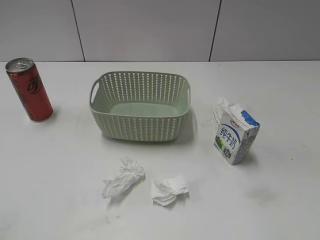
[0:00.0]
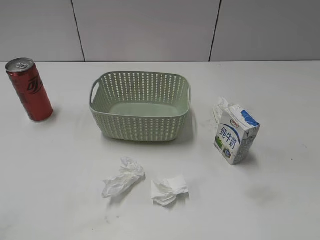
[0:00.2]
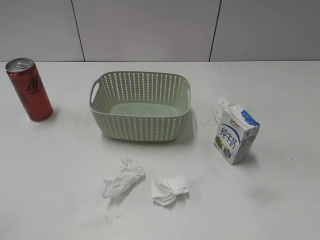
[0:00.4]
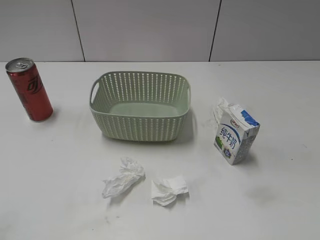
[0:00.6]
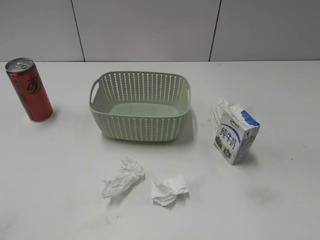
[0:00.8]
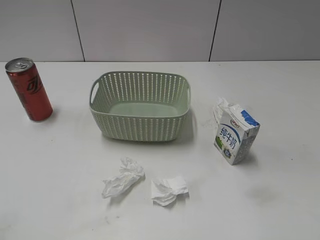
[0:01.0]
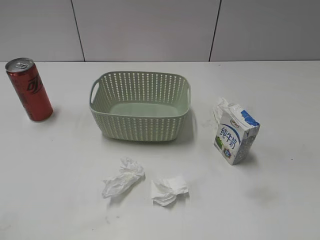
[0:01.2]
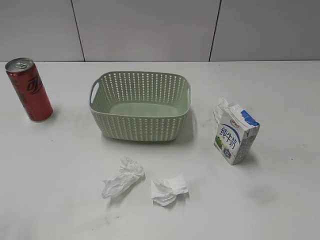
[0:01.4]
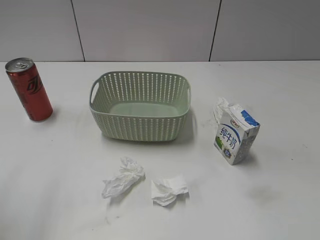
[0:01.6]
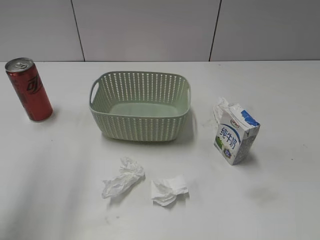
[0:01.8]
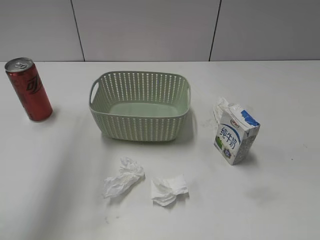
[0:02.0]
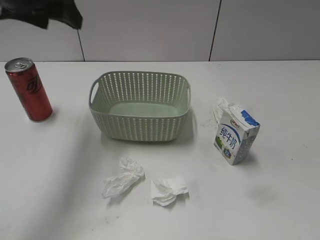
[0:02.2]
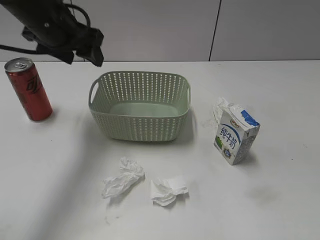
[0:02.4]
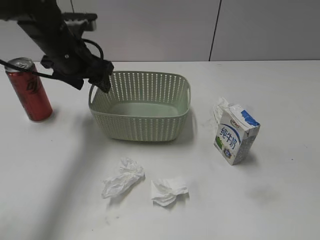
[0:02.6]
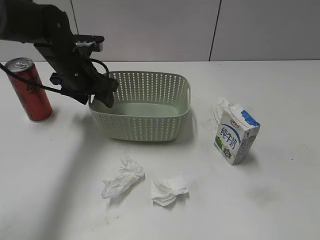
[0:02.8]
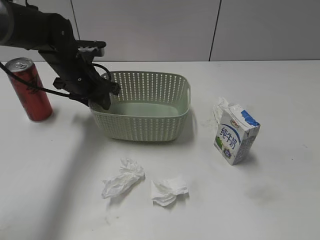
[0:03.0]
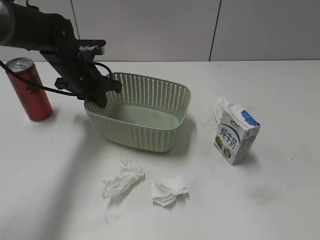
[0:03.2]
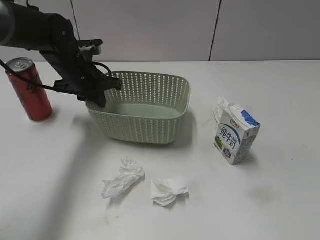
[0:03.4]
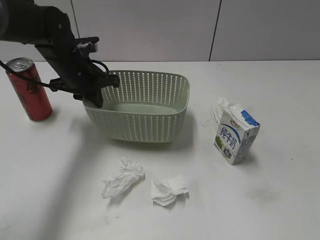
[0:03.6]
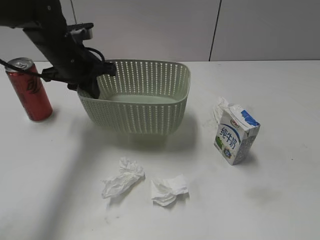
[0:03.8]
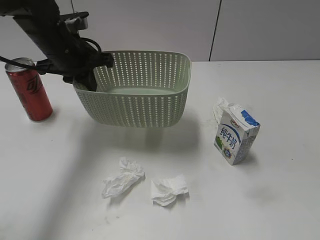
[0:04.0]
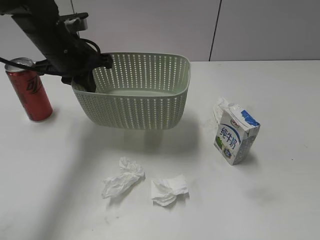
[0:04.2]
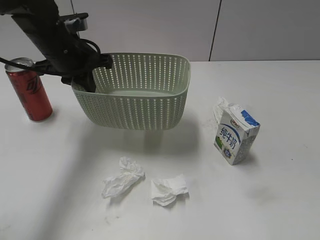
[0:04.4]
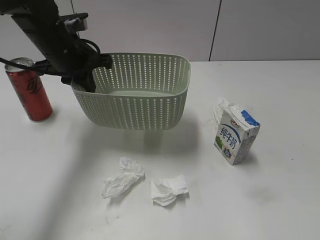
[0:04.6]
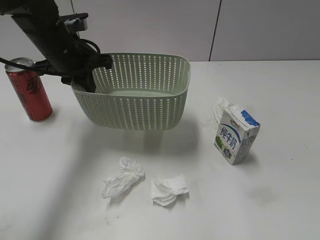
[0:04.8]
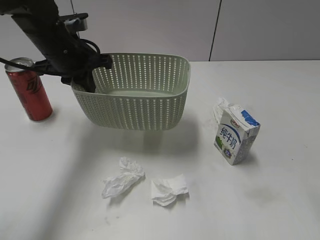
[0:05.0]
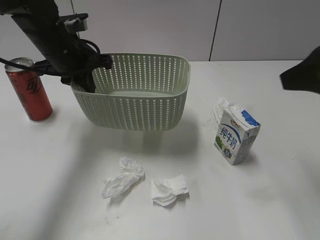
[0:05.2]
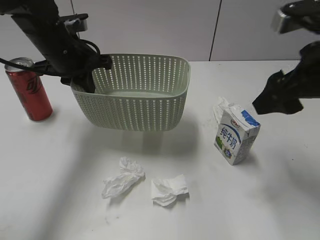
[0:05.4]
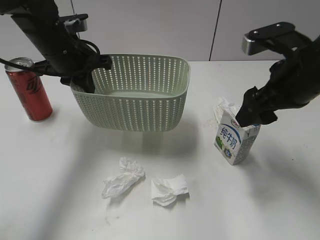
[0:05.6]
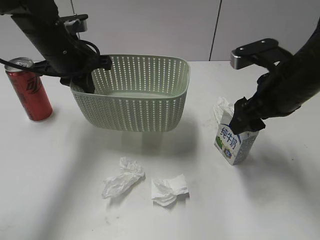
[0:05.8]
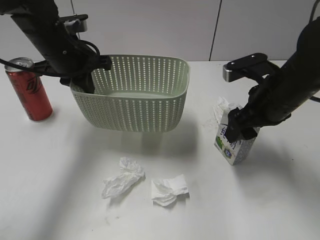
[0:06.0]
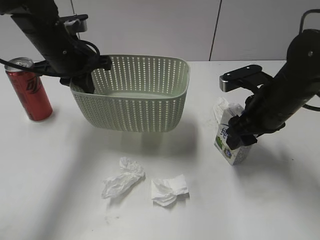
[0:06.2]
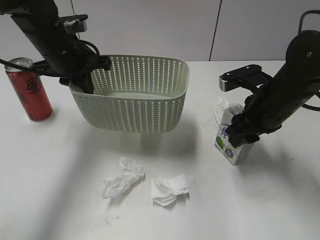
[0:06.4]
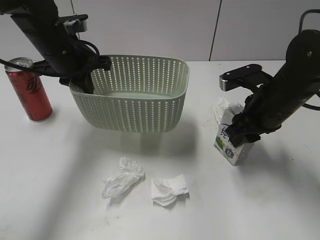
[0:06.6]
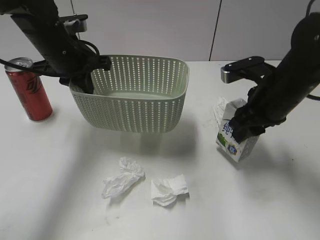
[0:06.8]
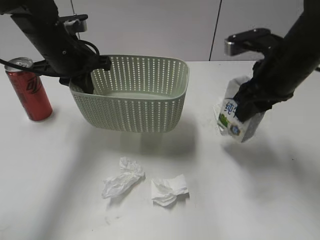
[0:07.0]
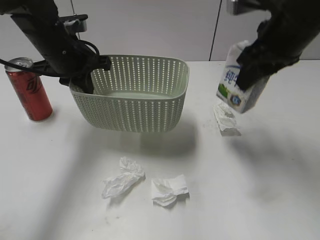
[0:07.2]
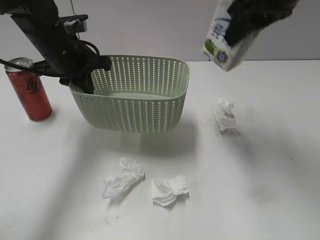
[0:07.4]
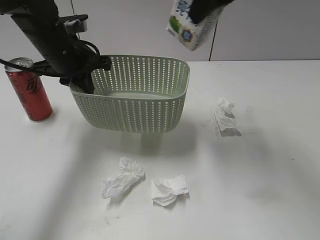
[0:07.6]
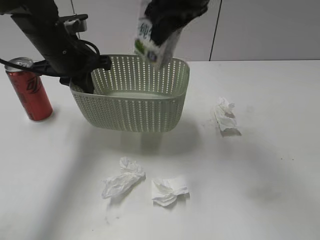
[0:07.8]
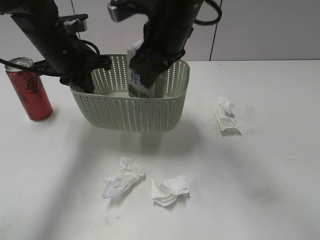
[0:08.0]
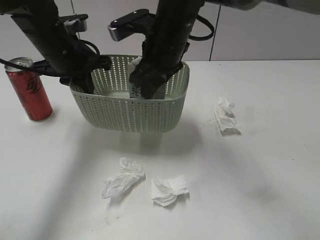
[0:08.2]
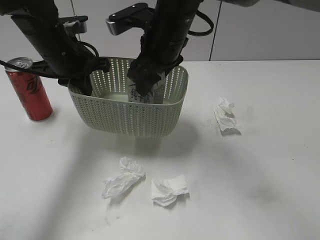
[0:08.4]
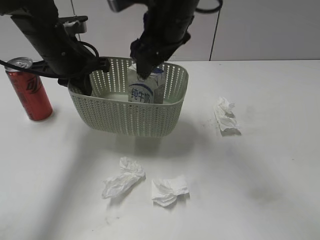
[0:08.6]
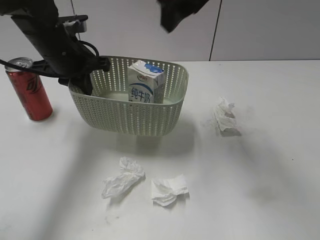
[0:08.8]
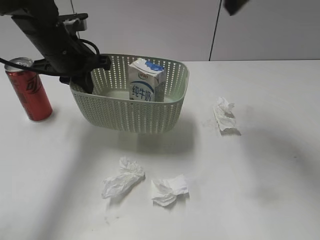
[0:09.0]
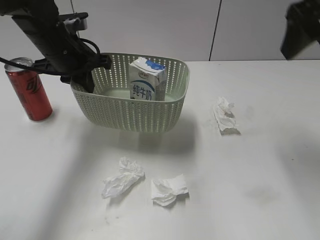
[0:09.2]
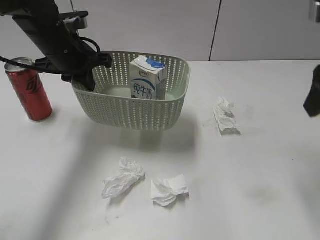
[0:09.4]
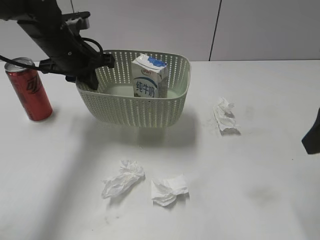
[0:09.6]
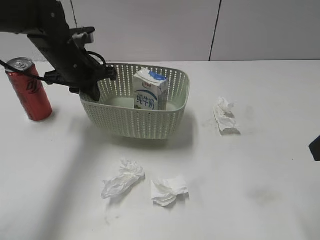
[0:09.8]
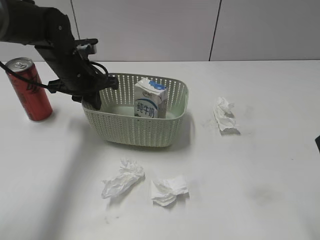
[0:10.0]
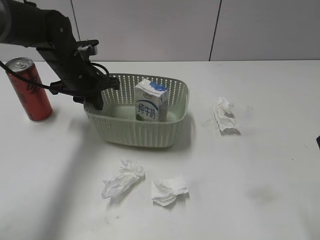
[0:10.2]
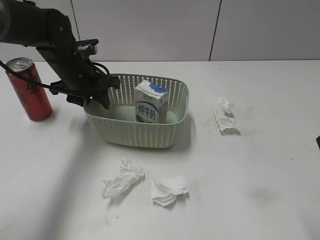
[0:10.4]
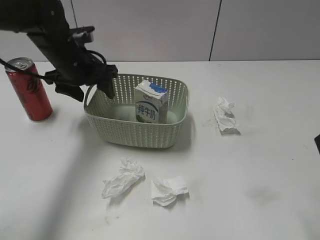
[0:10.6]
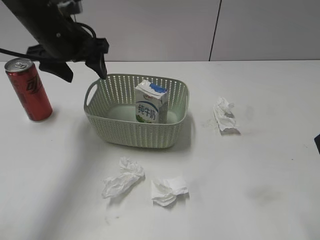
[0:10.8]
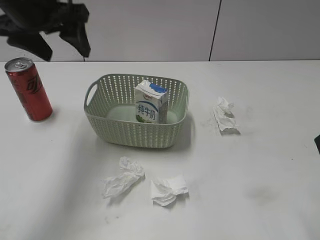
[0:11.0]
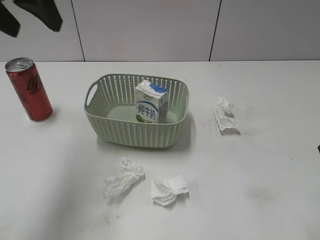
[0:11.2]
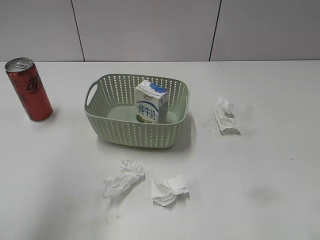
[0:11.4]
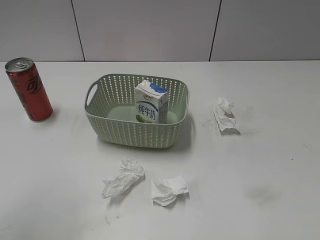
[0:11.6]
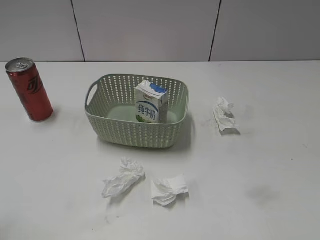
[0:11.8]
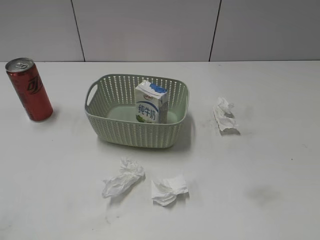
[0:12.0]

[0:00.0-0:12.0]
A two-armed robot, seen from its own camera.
Step, 2.2 to 3.2 s: Grasp the basket with left gripper.
Step, 3.4 to 4.0 s: Lift the basket with left gripper.
Step, 4.2 to 6.4 s: Grasp the milk with right gripper.
Step, 6.6 to 8.6 s: Place the milk in the basket with right gripper.
Step, 8.8 to 10.8 s: Place the basket on the table with left gripper.
1.6 to 3.0 s: The left gripper shifts roughly 35 cm forward, downward and to the right.
3.0 to 4.4 s: The left gripper is displaced upward by about 5 cm, and closes up.
4.4 to 6.0 s: The right gripper travels forward by about 30 cm.
6.0 to 7.6 s: The right gripper is displaced upward and to the left by roughly 20 cm, and closes up.
7.6 to 9.0 s: The right gripper goes downward and returns, roughly 15 cm each way, and opens up.
9.0 to 10.4 s: The right gripper shifts approximately 25 cm backward, to the right and downward, while the left gripper is displaced downward by some 5 cm, and opens.
10.4 to 12.0 s: The left gripper heads backward and upward, covering roughly 40 cm, and opens up, while the right gripper moves backward, approximately 15 cm.

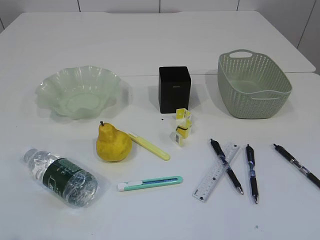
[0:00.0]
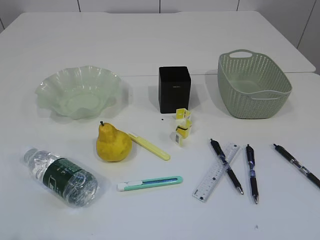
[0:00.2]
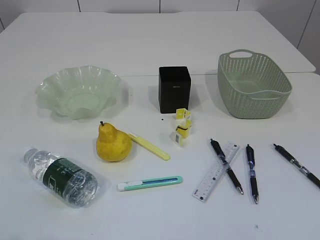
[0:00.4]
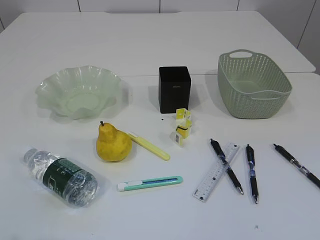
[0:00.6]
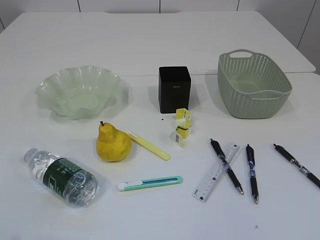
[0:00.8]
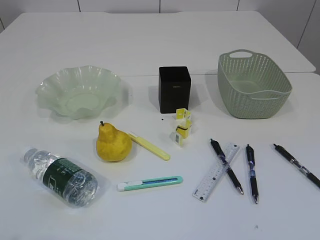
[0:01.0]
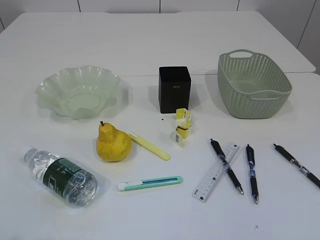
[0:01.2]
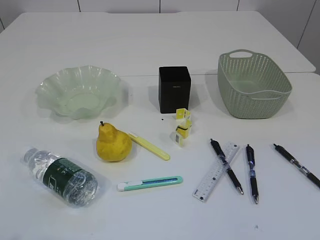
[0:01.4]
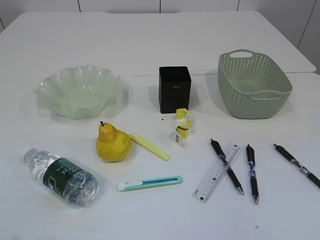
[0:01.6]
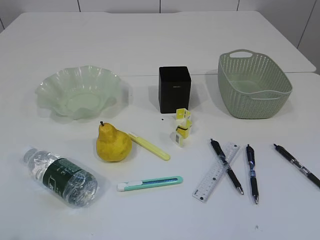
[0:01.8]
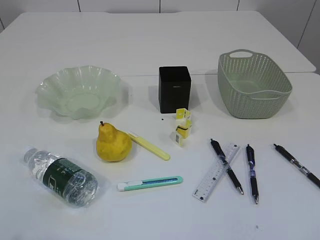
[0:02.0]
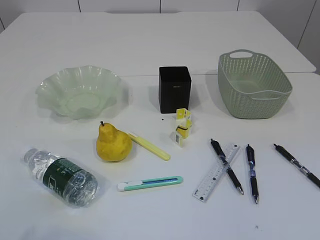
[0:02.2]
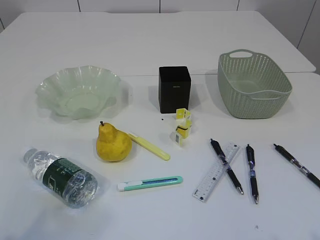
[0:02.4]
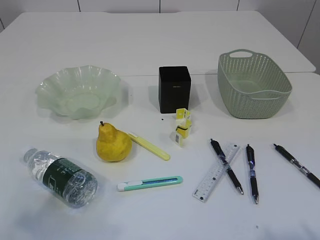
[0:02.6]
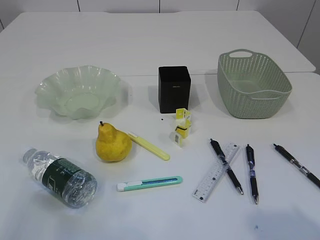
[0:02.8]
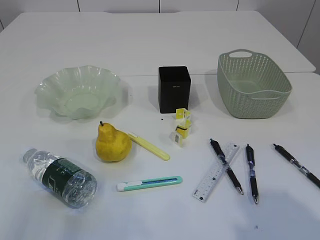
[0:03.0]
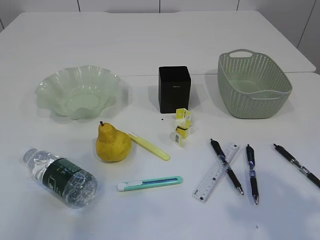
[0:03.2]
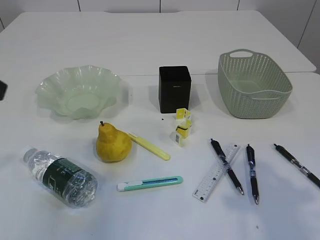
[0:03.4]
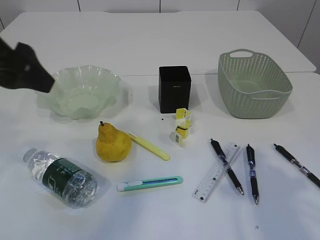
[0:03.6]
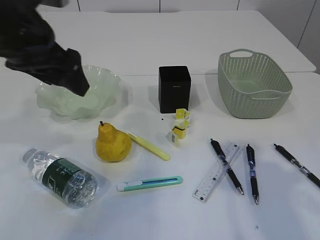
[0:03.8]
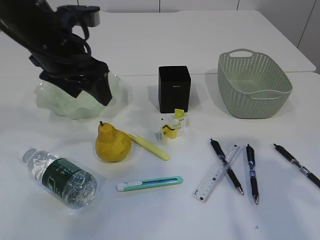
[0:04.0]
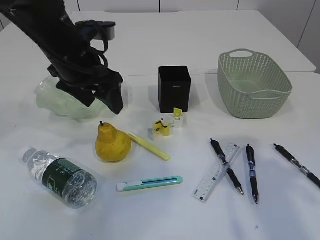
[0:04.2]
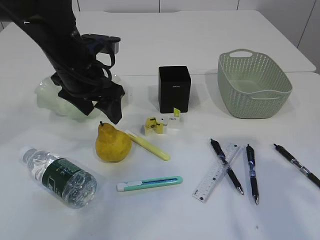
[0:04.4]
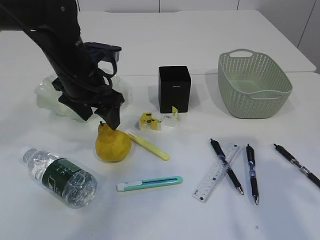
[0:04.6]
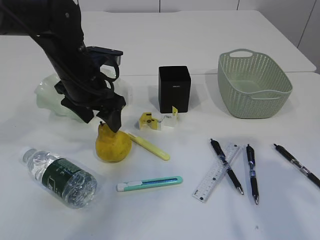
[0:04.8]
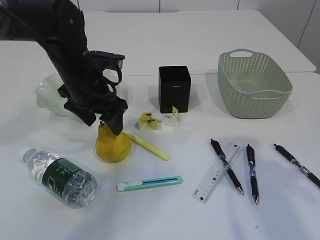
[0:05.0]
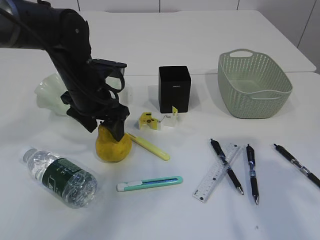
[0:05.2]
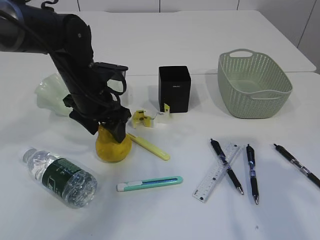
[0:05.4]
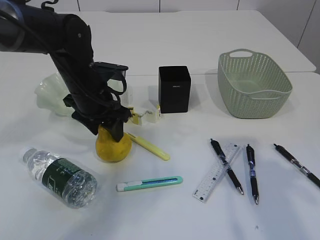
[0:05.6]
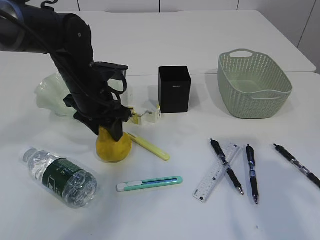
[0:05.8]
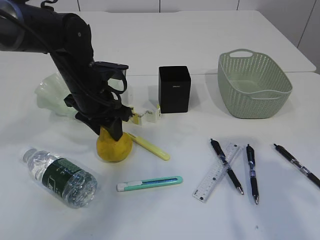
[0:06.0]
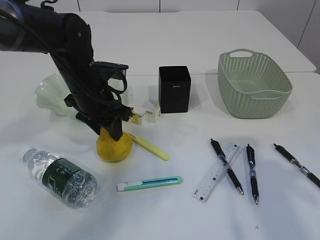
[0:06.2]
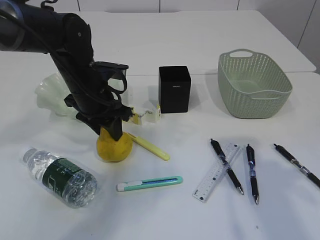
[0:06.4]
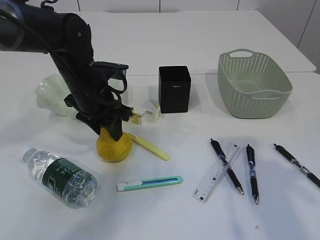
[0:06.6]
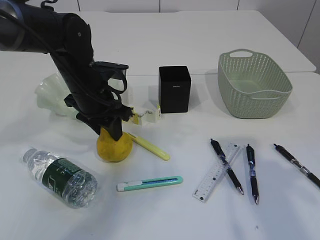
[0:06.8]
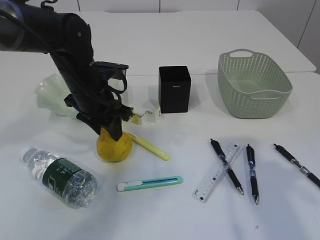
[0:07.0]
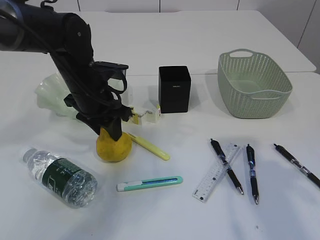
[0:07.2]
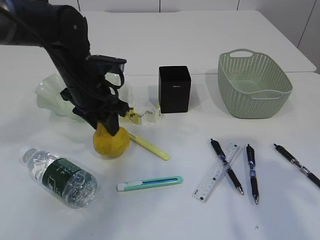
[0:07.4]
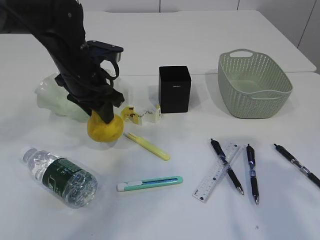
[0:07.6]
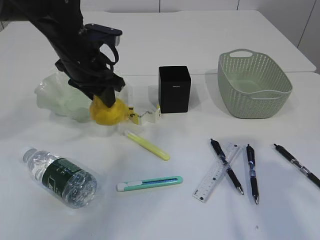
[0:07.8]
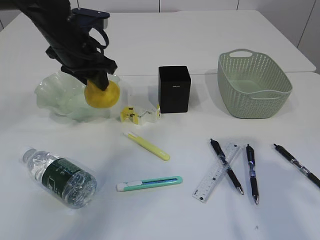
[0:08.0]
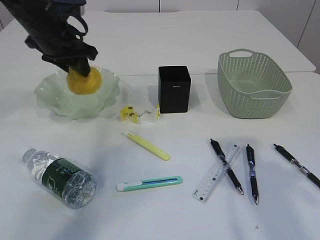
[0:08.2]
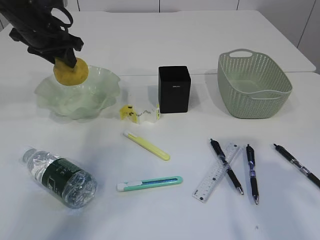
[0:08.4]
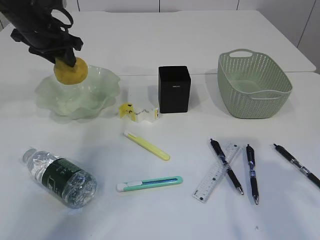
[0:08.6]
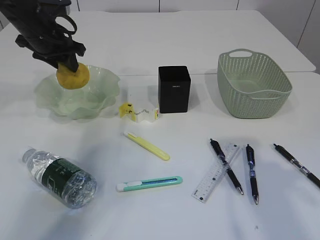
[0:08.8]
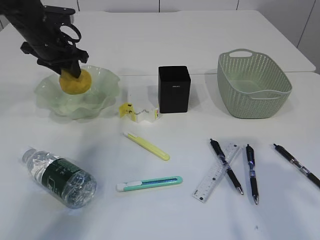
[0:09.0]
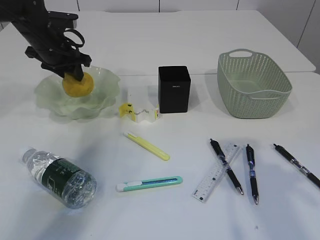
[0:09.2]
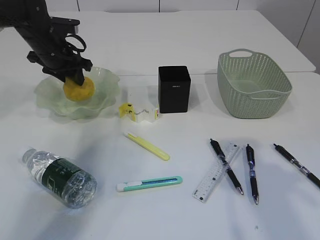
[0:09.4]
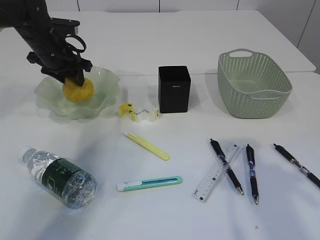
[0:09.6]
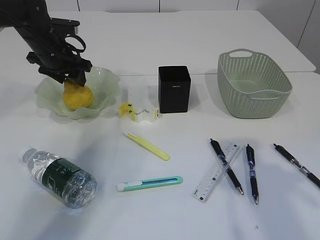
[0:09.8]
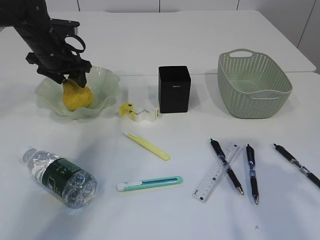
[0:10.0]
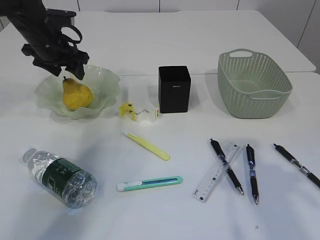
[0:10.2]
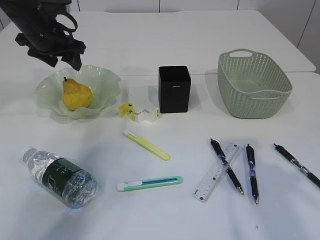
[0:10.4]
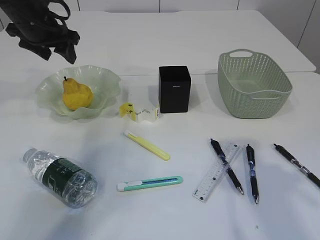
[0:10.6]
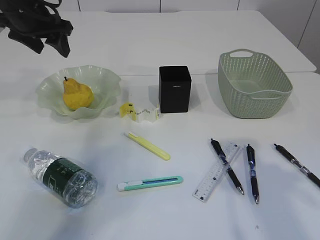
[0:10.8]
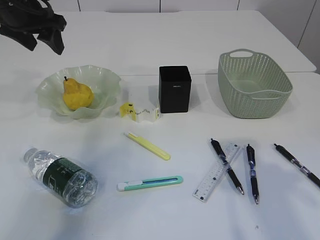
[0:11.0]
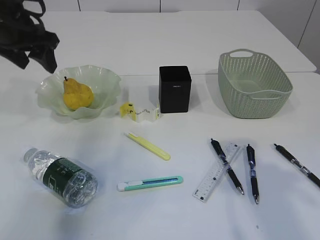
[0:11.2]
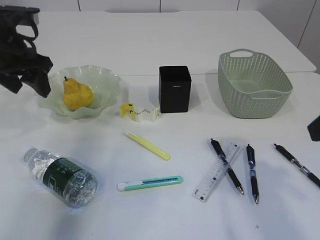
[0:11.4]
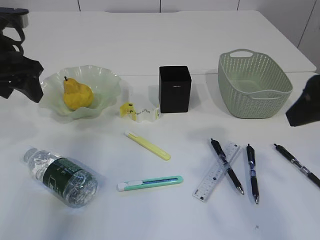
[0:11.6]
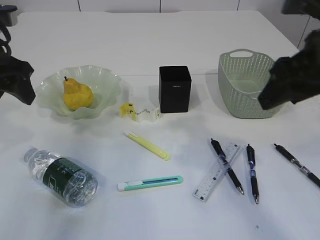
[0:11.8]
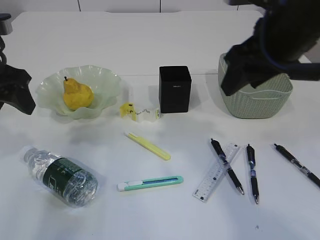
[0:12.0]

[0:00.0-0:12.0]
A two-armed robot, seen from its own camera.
Step, 7.6 to 10.4 s: Place the pear in the plate.
1.6 to 3.0 s: The grippers both shift forward by about 10 cm.
3.0 to 4.4 s: The left gripper heads forward, to the right and downward, covering some 30 cm, while the right gripper moves forward, roughly 10 cm.
4.4 to 6.0 s: The left gripper moves downward, roughly 5 cm, and closes up.
6.0 to 7.6 s: The grippers stay close to where they were, moving slightly.
7.6 to 9.0 s: The left gripper shifts roughly 15 cm forward and to the left.
9.0 to 10.4 s: The left gripper opens its fingers.
10.4 to 12.0 s: The right gripper shifts some 15 cm forward and to the left. Meanwhile the left gripper goes some 15 cm backward.
